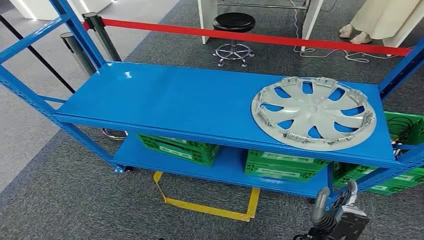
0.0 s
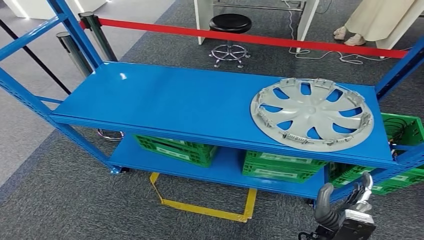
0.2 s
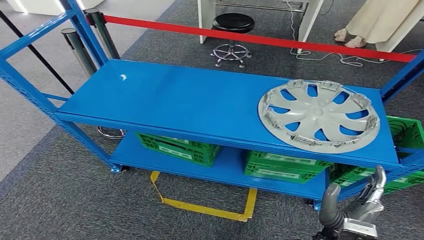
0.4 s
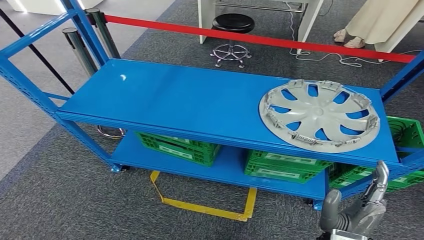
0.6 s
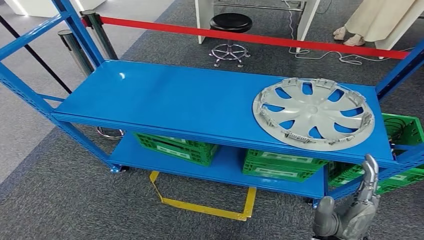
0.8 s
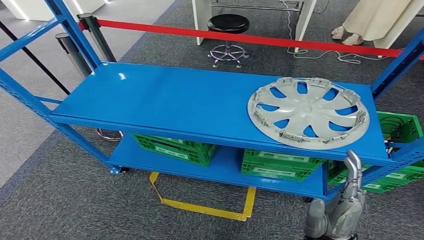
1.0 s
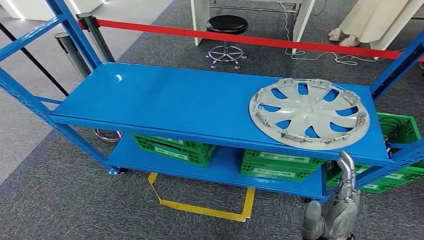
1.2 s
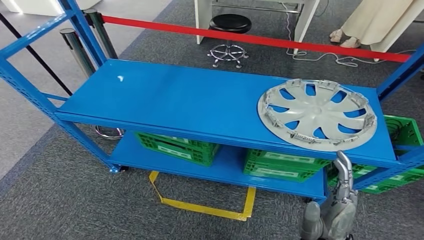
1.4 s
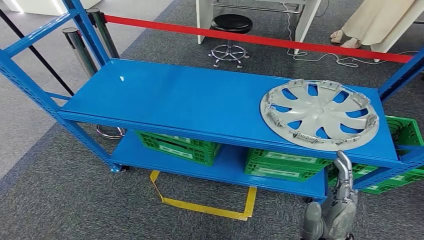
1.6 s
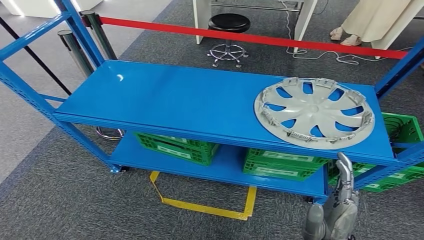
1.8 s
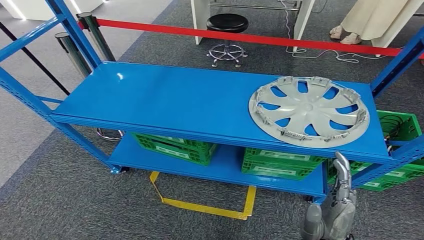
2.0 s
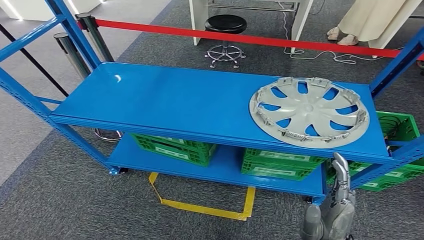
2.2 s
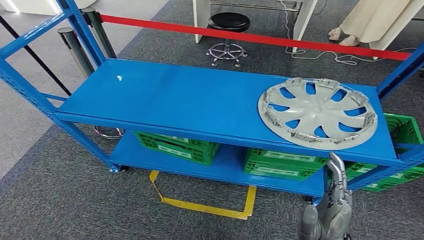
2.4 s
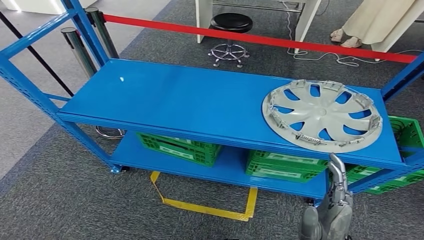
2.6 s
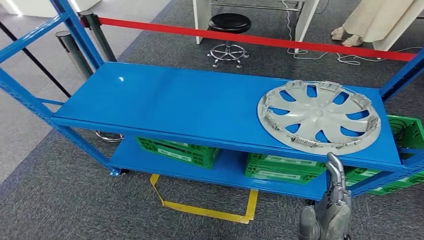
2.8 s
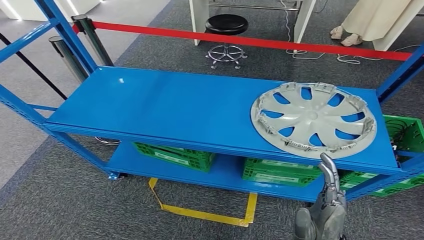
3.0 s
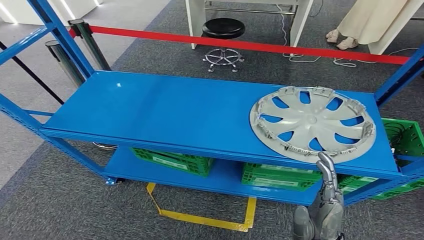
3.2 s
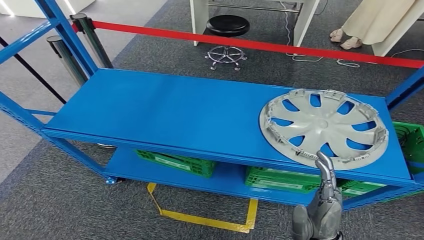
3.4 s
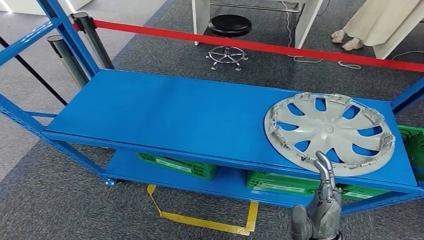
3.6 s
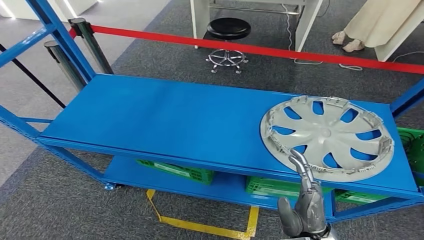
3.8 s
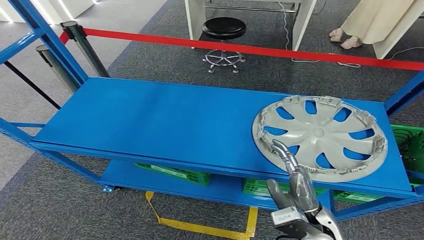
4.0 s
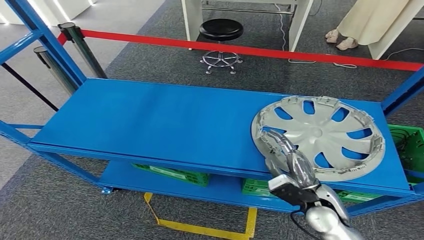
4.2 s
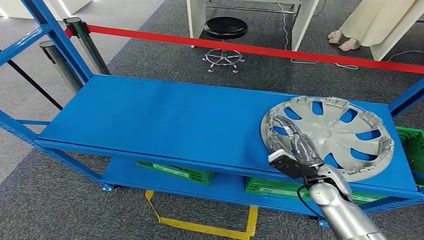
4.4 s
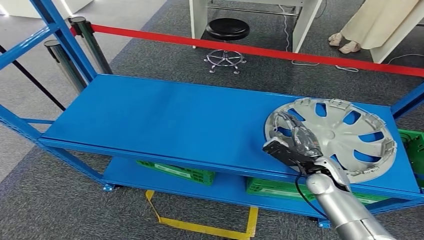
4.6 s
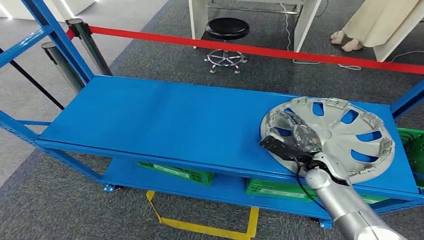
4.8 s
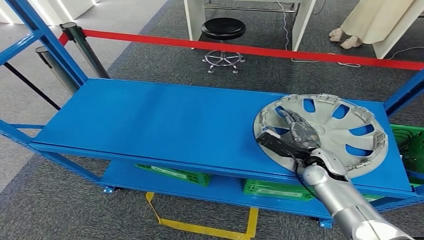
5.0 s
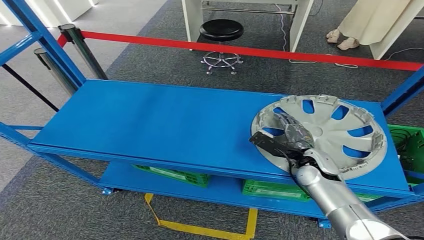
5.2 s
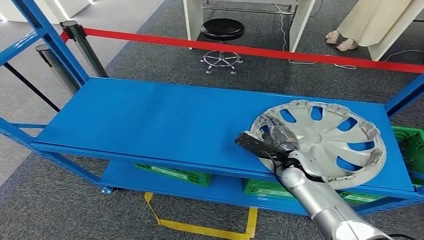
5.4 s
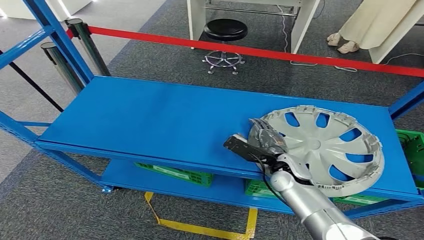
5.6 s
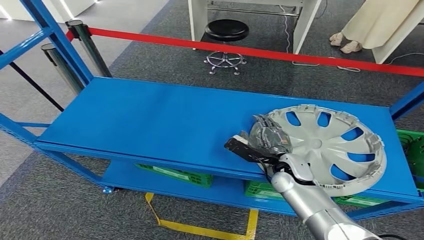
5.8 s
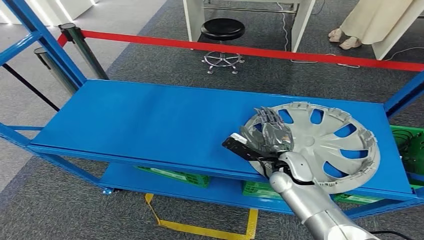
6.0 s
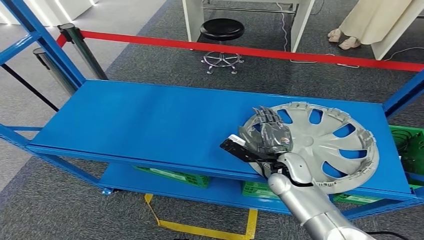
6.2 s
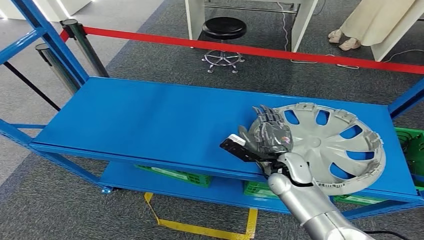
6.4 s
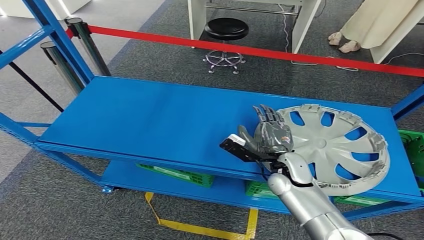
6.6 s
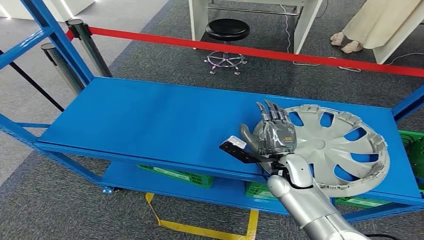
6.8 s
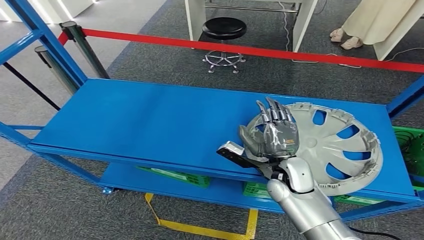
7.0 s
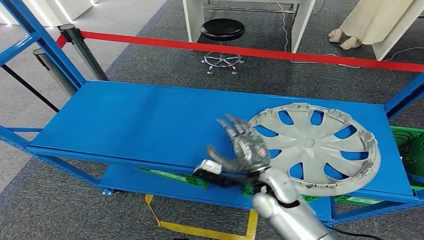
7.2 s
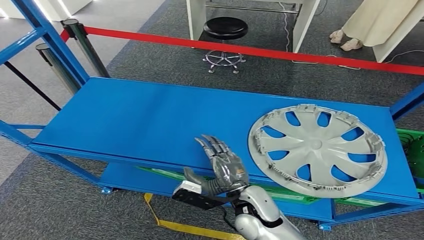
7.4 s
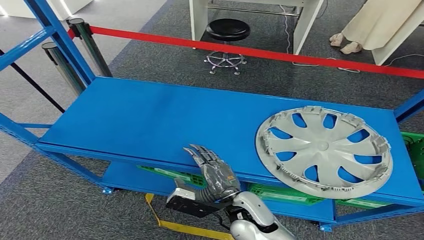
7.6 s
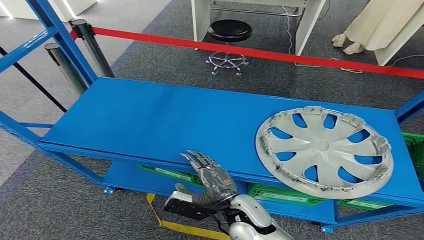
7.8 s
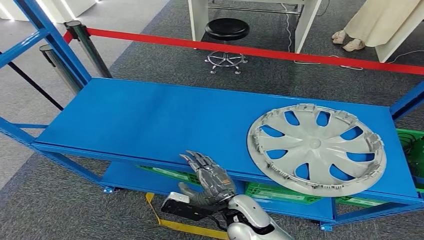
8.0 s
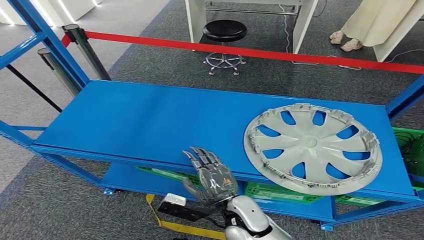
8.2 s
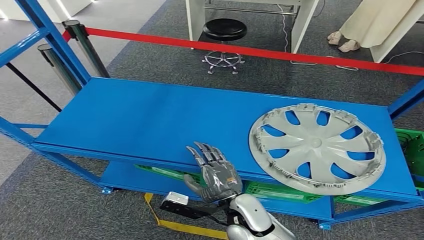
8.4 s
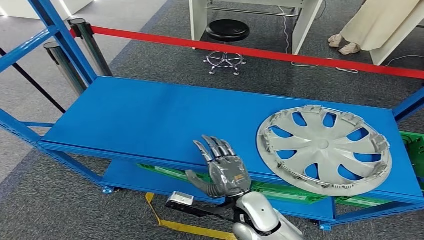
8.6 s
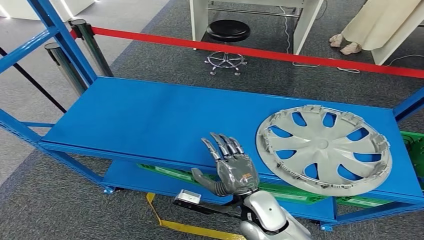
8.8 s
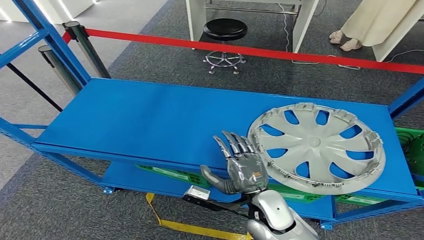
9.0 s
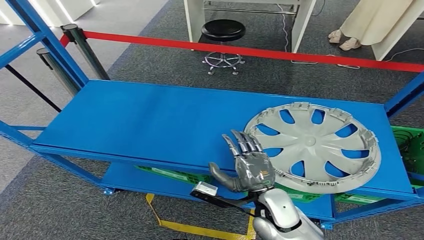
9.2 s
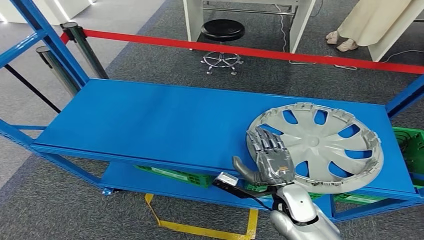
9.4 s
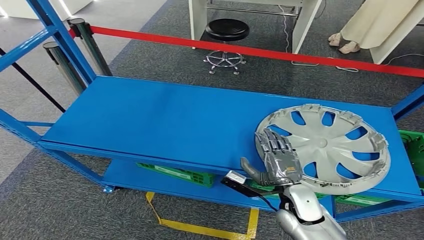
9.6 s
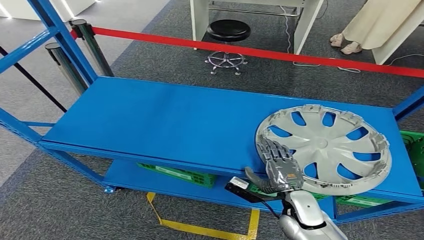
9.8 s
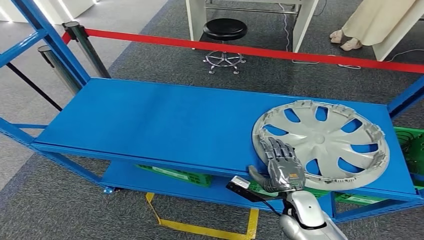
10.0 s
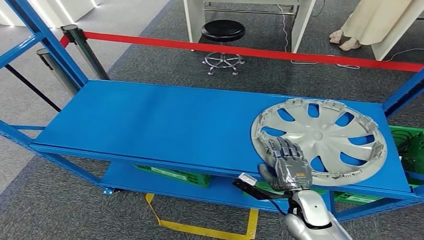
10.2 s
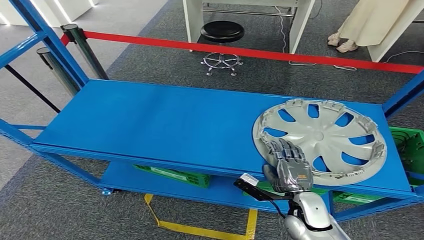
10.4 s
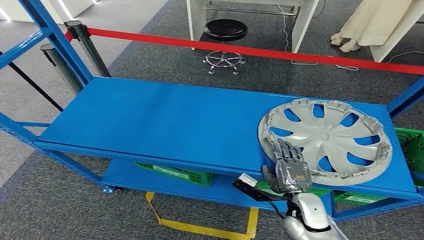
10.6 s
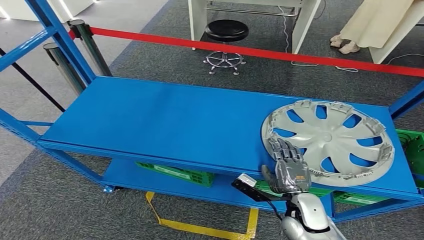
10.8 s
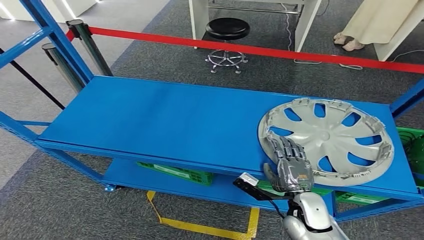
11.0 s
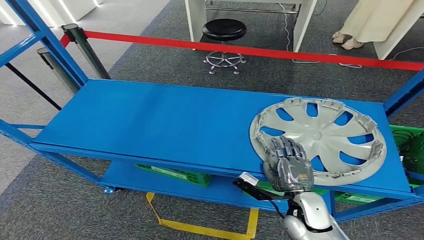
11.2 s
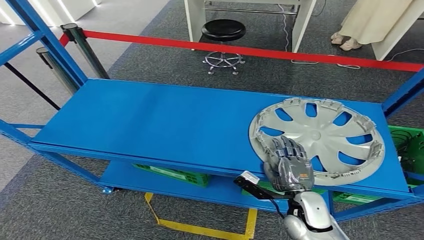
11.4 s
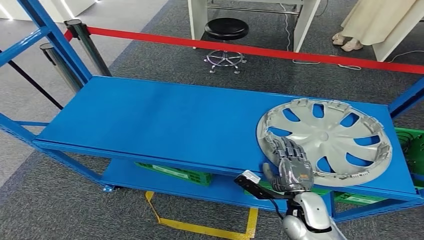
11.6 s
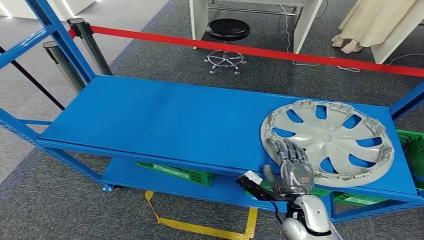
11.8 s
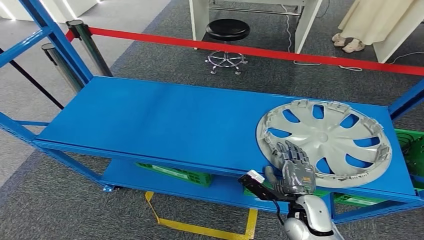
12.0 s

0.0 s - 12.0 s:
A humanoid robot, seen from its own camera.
10.4 s - 12.0 s: There are only small adjustments of the hands.

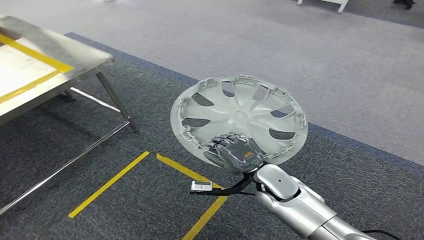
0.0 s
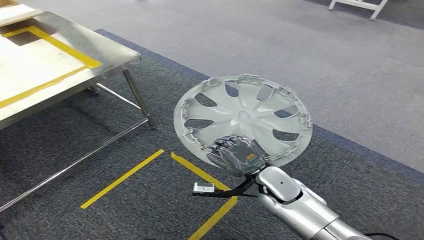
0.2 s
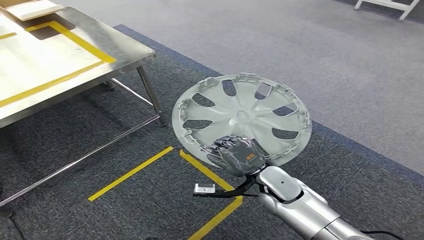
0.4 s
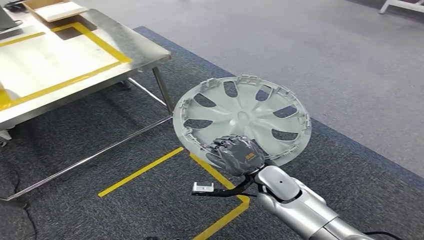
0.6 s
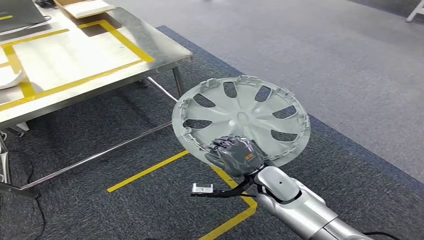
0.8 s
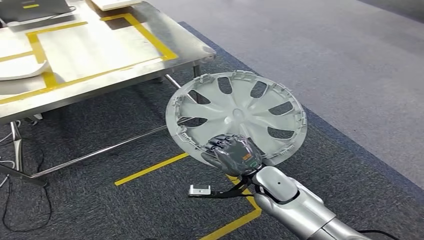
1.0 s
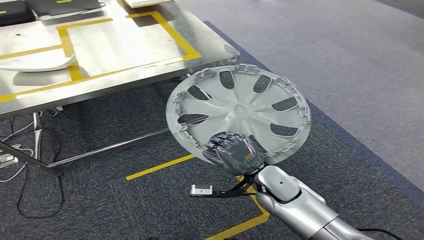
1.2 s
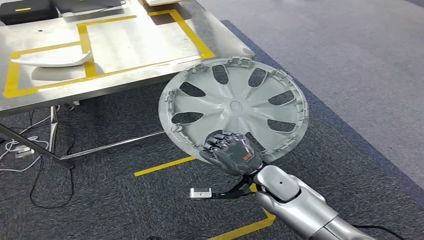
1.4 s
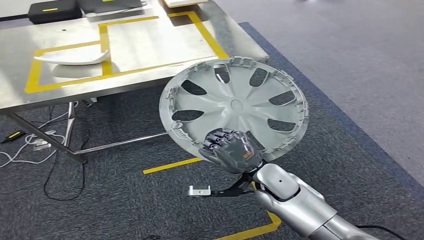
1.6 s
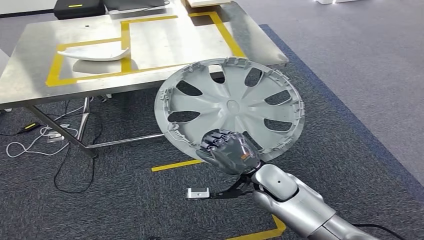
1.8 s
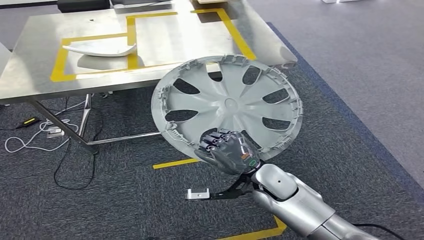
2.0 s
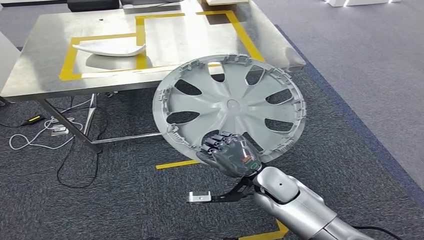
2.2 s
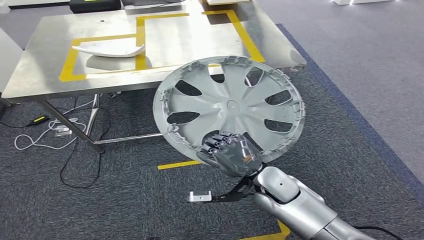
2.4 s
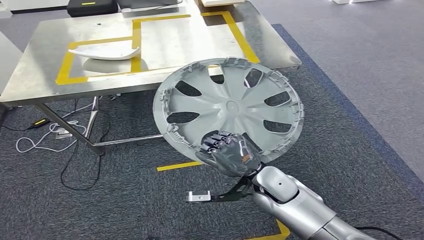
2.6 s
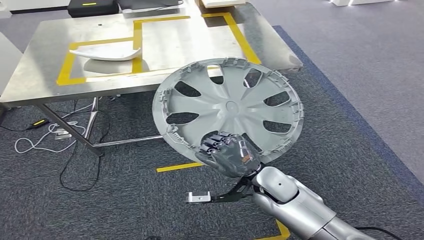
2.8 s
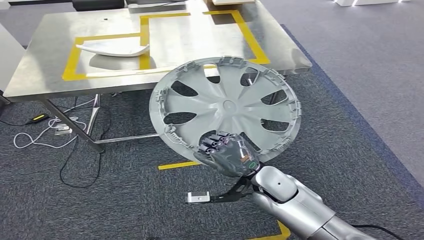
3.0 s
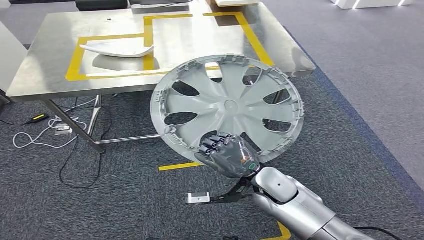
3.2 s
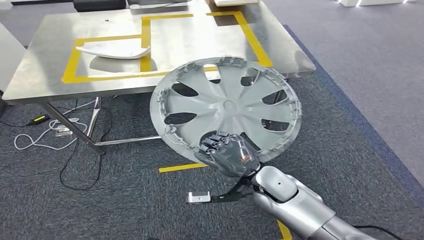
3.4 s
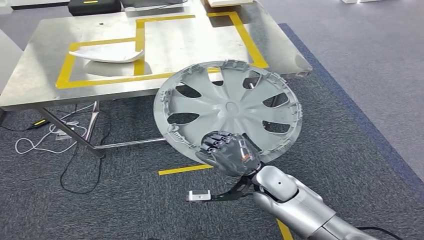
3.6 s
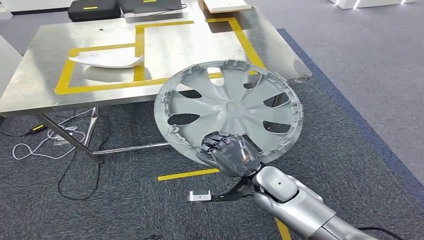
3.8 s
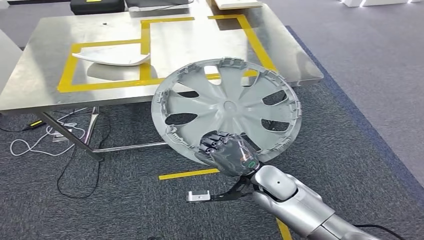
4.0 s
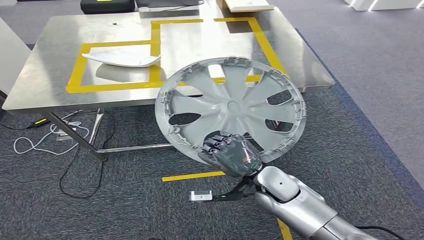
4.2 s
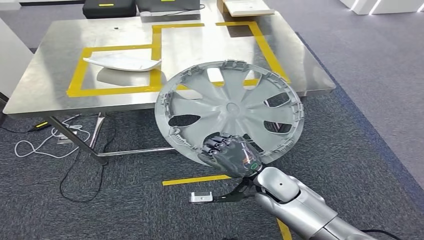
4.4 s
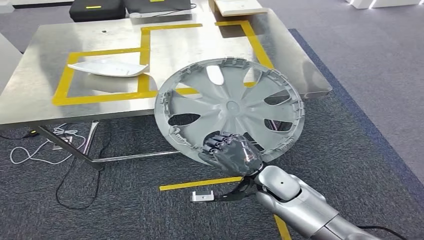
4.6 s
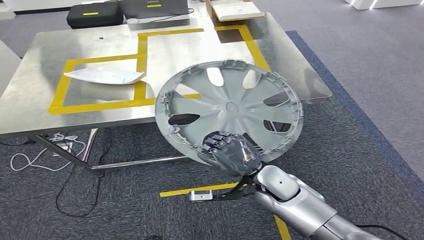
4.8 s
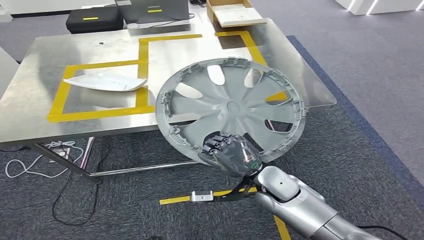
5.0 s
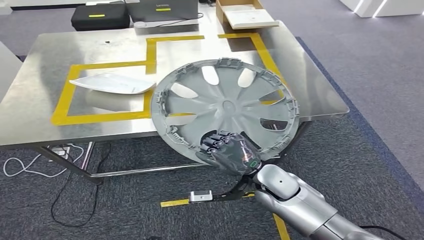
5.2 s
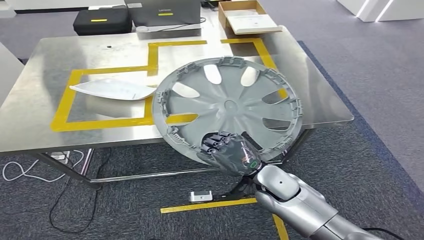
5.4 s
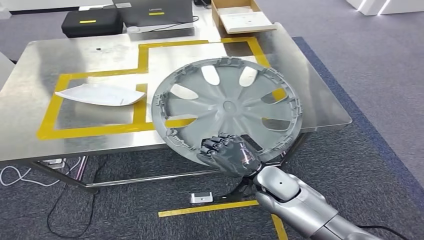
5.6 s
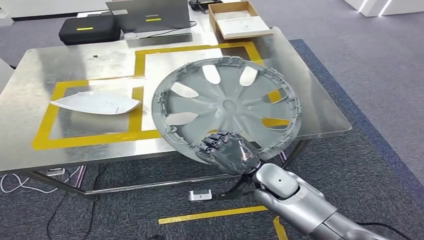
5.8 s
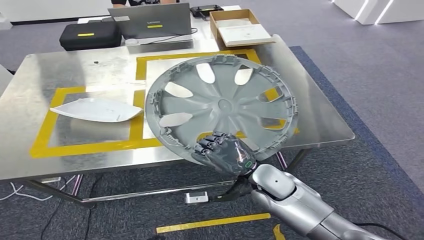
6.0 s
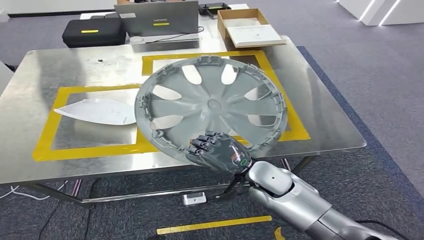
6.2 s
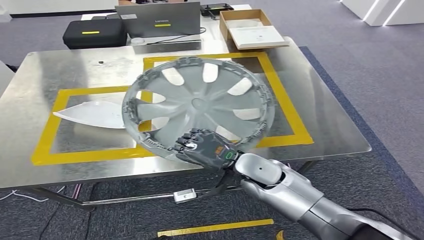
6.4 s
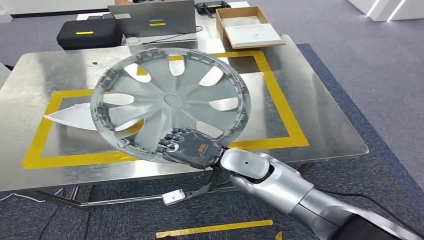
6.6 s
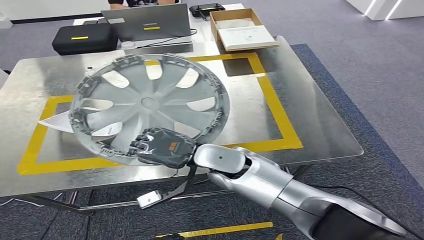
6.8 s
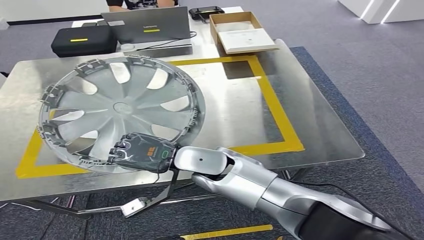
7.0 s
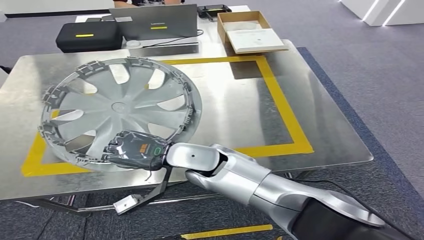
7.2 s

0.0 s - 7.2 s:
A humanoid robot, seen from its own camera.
Step, 0.0 s - 3.2 s: Move the small component to the workbench.
